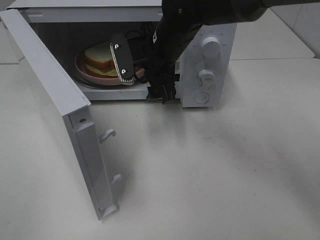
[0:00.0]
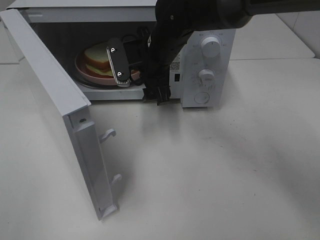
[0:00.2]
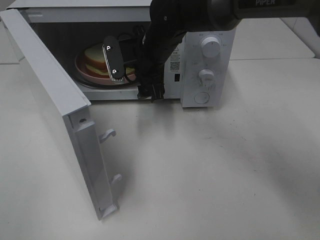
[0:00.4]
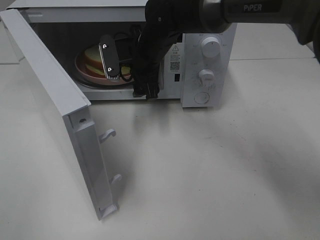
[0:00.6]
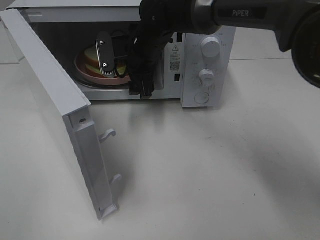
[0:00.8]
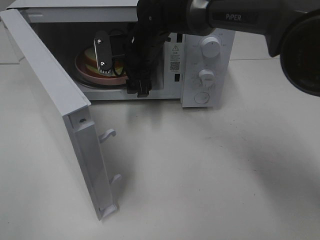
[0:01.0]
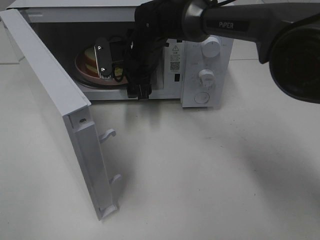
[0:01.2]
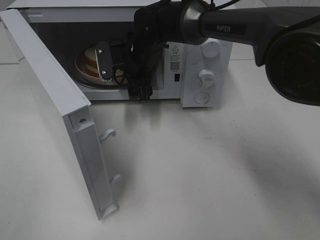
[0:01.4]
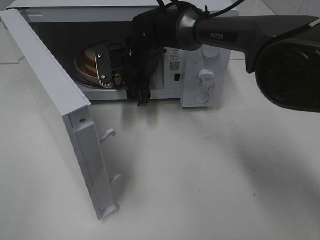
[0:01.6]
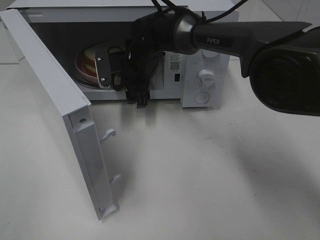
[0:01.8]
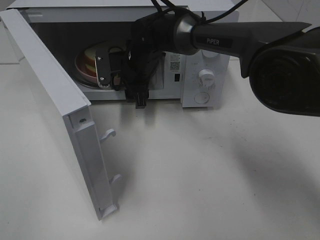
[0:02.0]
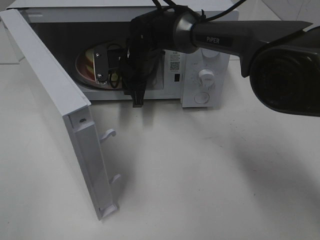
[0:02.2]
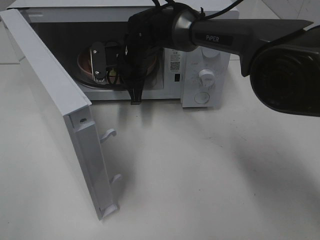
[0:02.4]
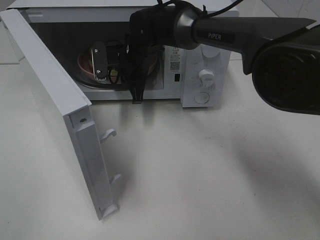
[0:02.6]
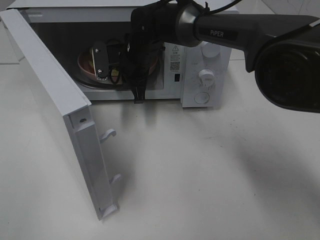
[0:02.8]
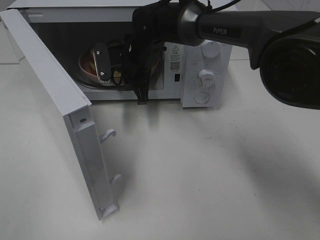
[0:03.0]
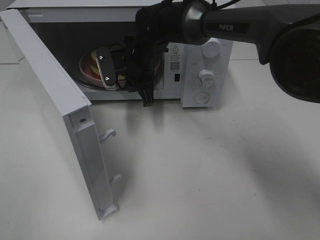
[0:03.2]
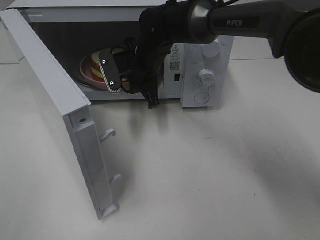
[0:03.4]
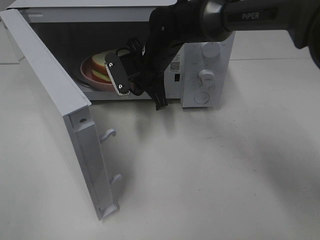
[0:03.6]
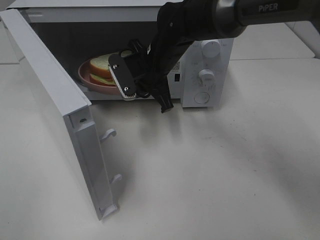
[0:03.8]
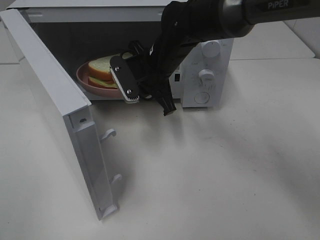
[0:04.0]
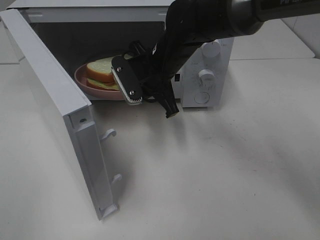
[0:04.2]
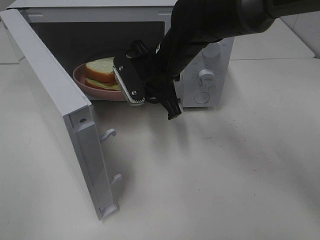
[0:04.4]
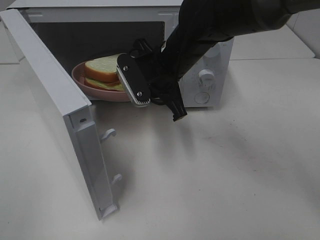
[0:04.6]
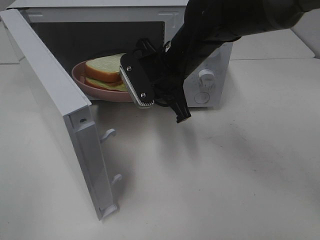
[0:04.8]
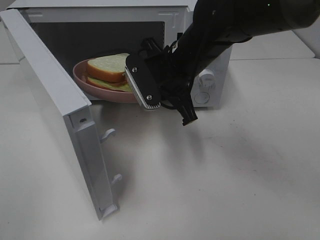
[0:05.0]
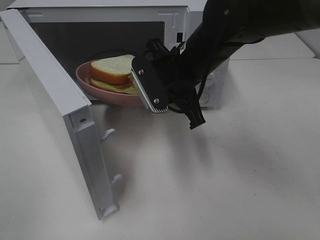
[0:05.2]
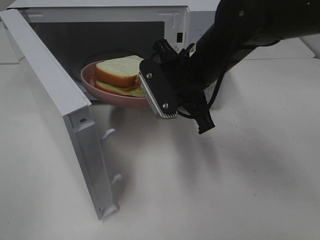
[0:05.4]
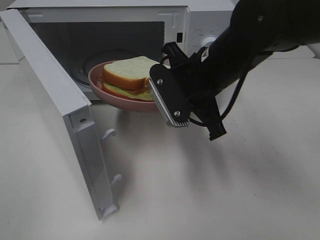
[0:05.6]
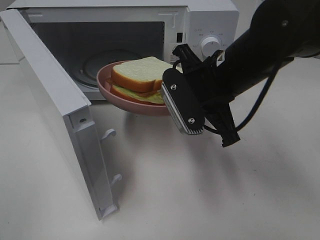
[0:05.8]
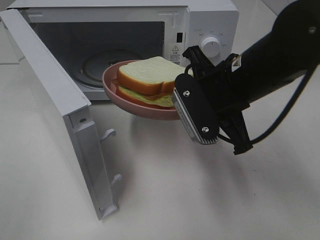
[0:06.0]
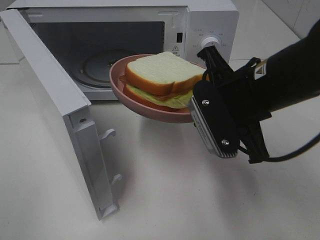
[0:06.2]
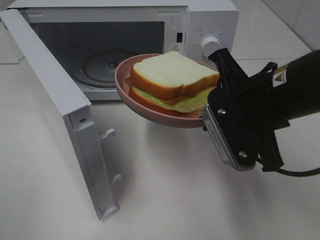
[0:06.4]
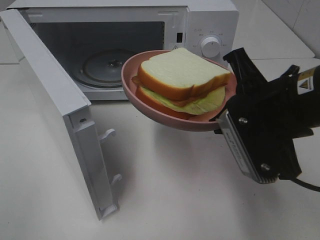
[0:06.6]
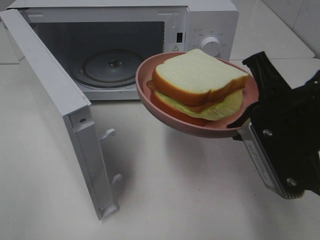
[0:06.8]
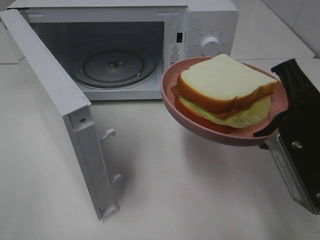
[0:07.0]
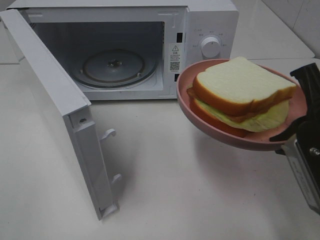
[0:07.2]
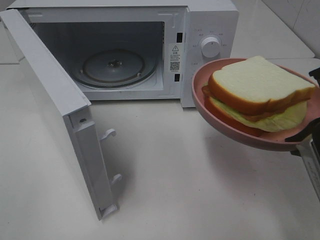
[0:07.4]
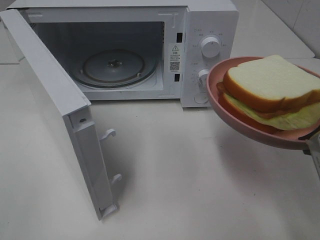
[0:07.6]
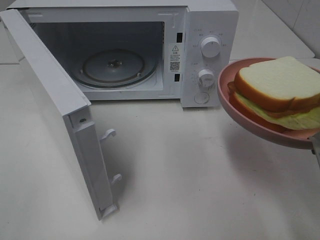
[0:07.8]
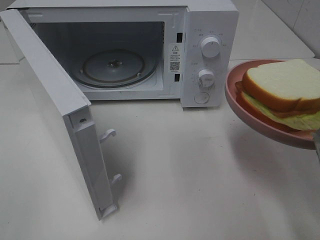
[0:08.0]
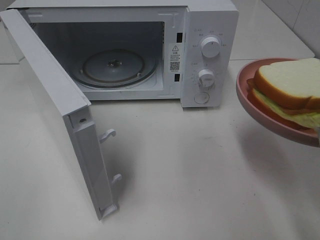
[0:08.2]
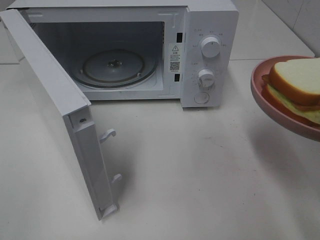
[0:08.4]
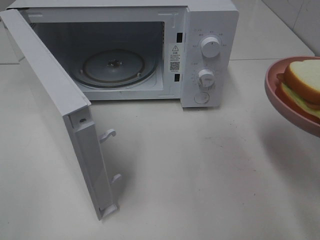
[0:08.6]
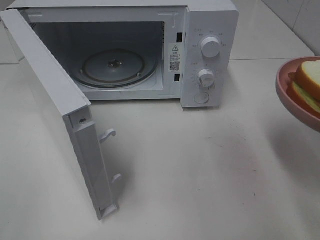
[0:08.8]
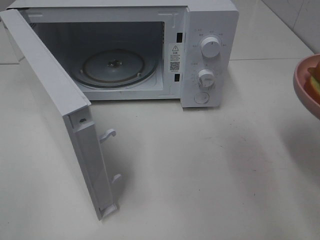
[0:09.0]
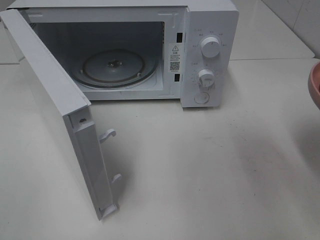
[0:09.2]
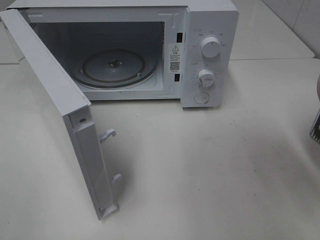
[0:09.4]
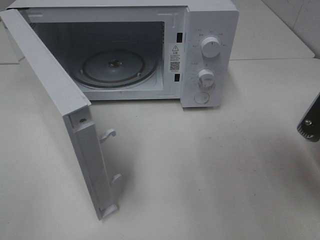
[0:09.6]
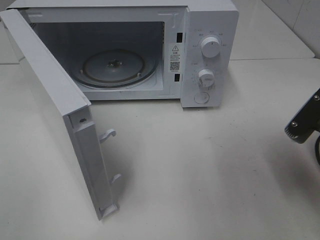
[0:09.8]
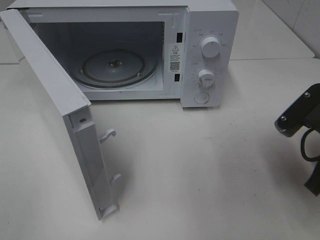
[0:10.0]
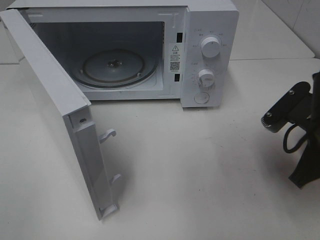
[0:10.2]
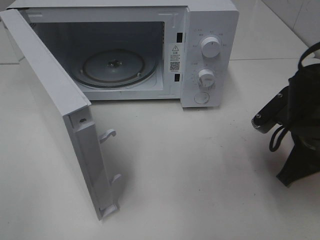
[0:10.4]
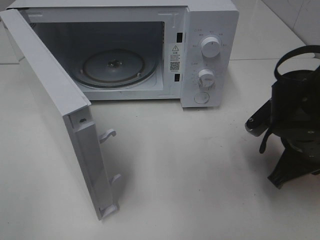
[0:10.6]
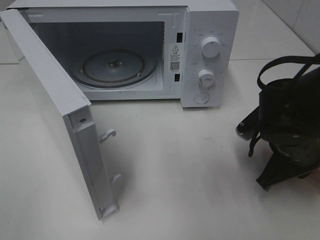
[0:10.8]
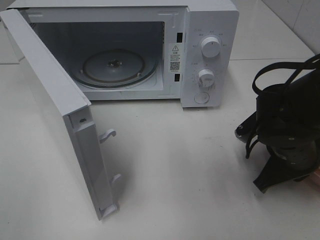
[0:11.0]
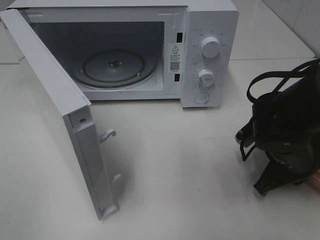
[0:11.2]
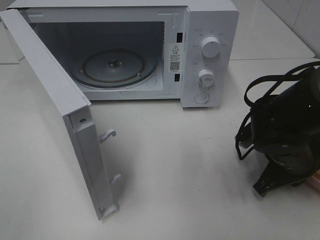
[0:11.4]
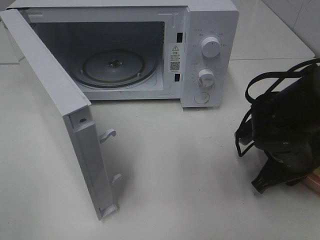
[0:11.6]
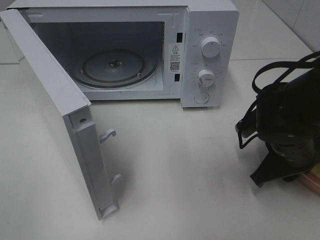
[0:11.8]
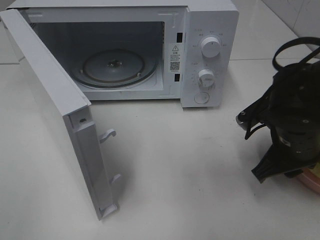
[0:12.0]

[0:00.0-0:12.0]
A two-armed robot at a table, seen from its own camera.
Task of the whole recording: Heat Sandwich.
Step, 0:00.0 to 0:02.8: Right hand: grab the plate with the sandwich.
0:00.0 to 0:01.6: The right gripper is displaced forward and downward by some 10 cm.
0:01.6 to 0:03.0: The right gripper closes.
0:03.0 to 0:04.4: The right gripper goes about 10 cm backward and to the right.
0:04.4 to 0:06.0: The right gripper heads backward and to the right, covering roughly 15 cm.
0:06.0 to 0:07.6: The right gripper goes some 15 cm backward and to the right.
0:09.0 to 0:10.4: The right gripper moves downward and forward, some 15 cm.
0:10.4 to 0:12.0: The right gripper opens.

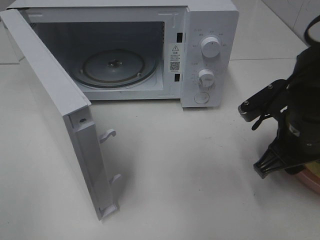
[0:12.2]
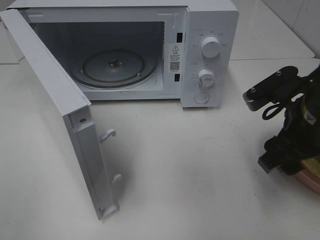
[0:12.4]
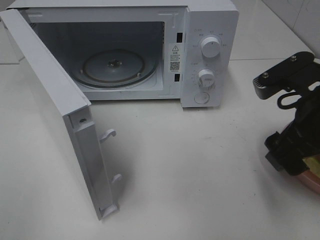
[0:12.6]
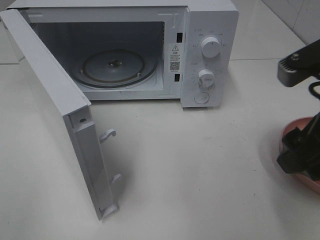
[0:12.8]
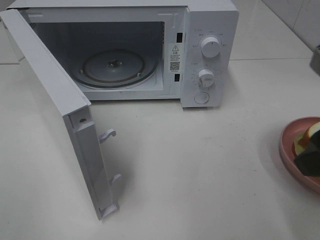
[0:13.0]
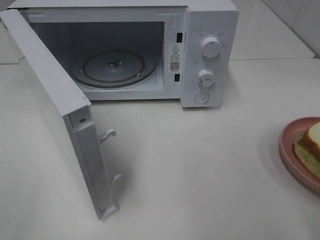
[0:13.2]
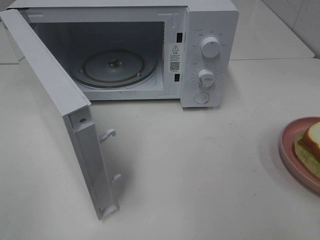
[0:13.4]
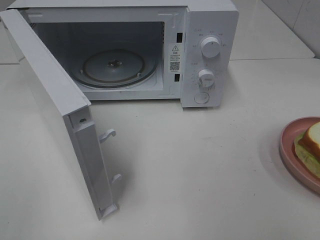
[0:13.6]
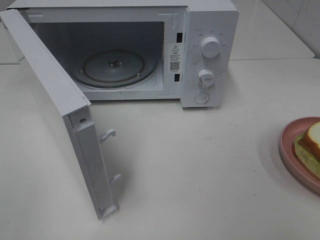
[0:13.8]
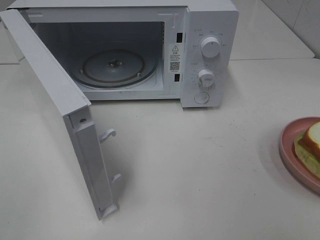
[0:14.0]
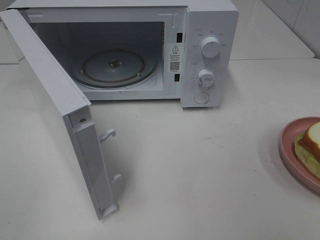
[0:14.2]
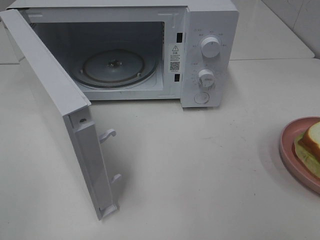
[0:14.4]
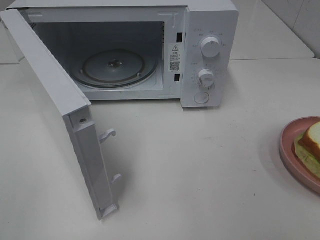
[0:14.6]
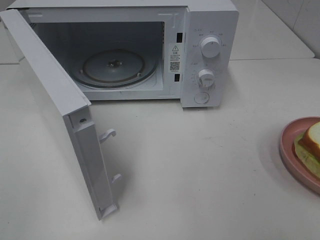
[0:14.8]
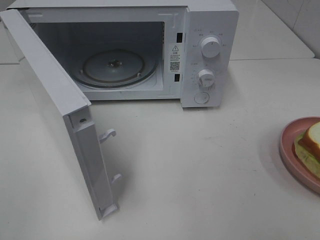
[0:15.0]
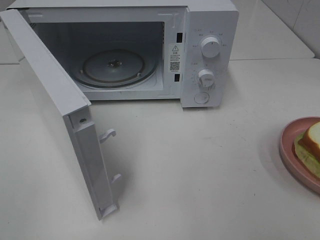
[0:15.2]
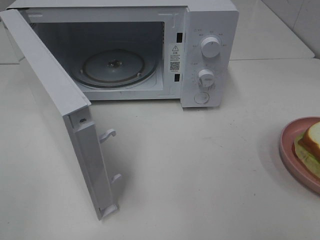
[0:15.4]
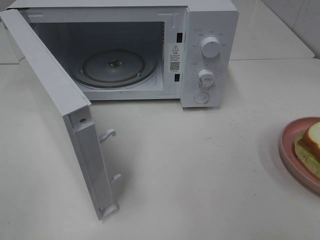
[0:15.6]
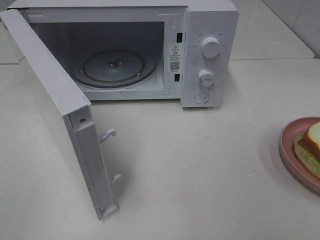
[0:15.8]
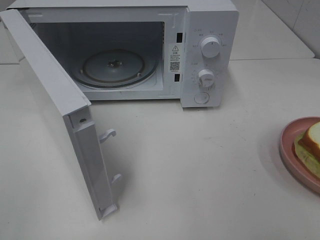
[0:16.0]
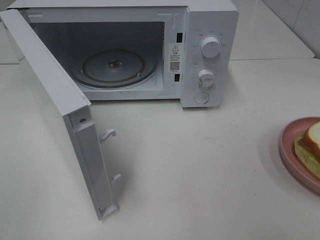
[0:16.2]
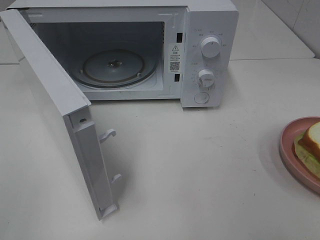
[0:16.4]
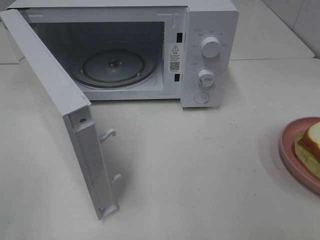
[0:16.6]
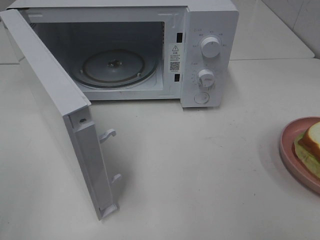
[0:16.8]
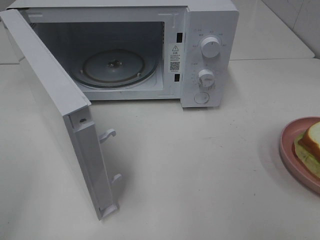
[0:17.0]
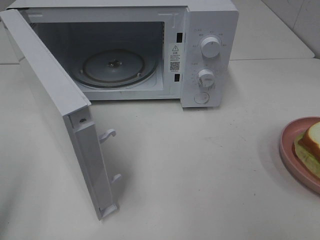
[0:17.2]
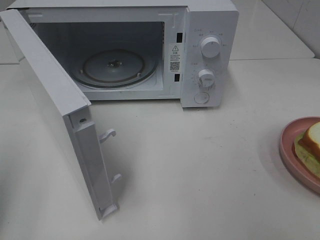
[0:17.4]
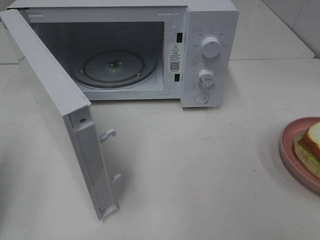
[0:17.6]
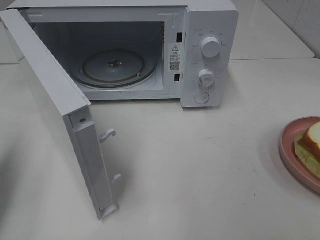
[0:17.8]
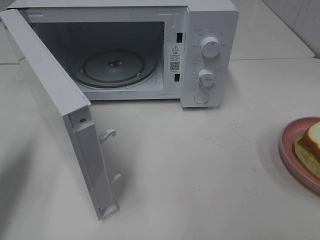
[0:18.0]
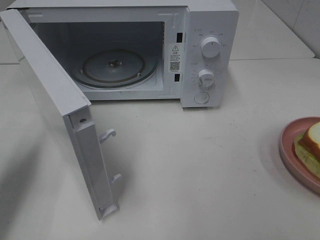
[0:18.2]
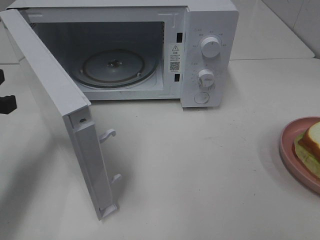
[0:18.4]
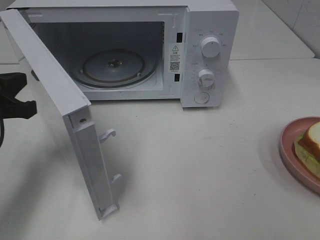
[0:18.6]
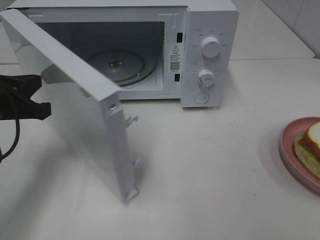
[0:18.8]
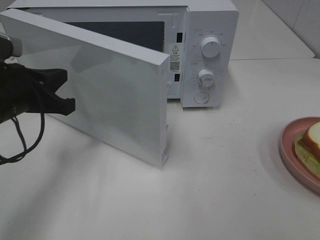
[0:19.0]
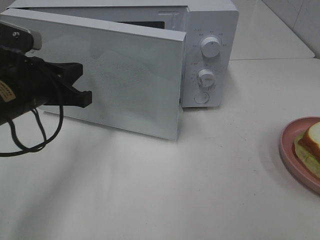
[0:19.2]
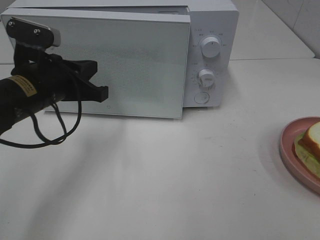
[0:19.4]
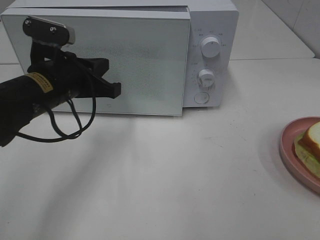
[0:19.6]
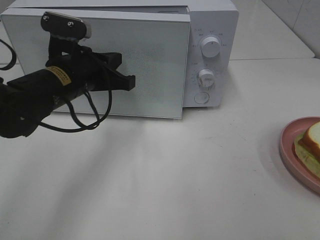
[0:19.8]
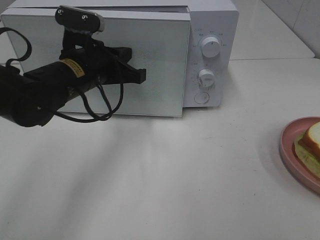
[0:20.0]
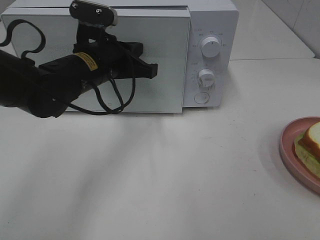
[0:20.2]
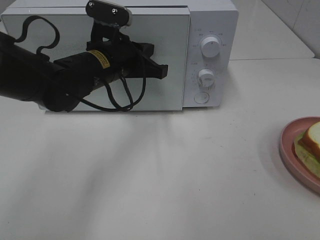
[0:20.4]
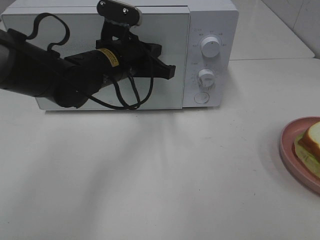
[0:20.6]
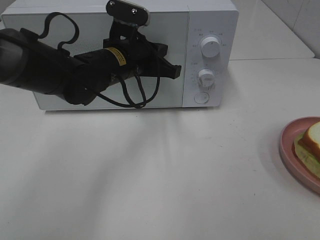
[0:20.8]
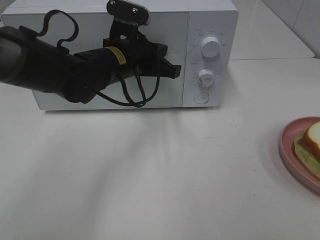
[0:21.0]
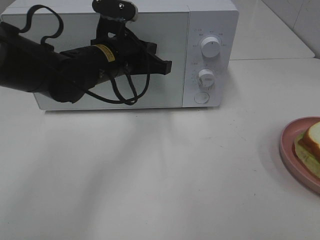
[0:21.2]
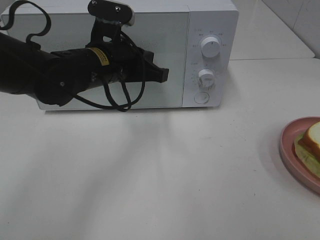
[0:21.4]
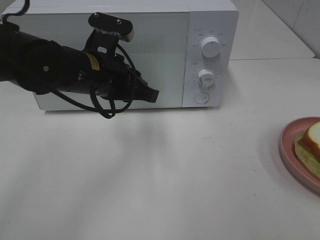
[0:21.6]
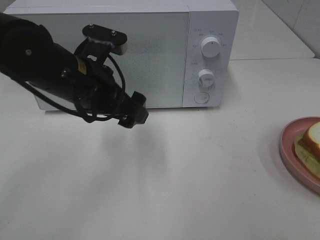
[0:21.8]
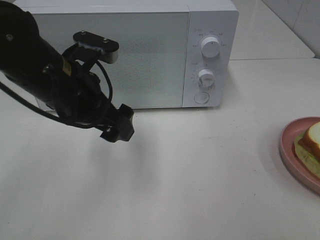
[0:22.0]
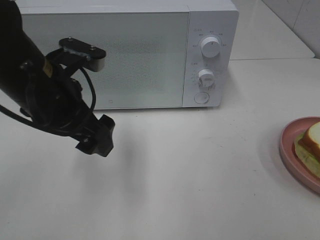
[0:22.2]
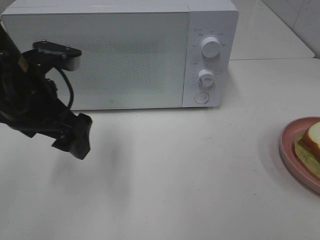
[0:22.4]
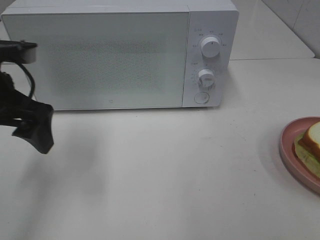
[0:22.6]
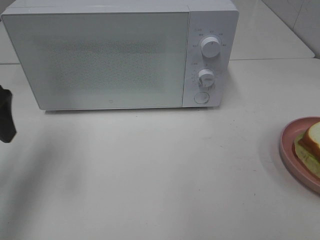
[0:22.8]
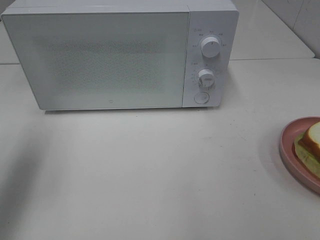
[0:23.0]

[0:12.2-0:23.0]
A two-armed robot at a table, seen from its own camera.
Task of the whole recording: Heat Sandwich.
Step, 0:13.0 to 0:21.2: Left hand: close the microwave door.
0:12.2 to 0:13.8: The right gripper shifts about 25 cm backward, upward and to the right, and opens.
0:16.8 to 0:18.4: The left gripper goes roughly 20 cm forward and downward, and closes up.
0:18.4 to 0:20.0: The left gripper moves to the right and forward, approximately 20 cm.
0:21.4 to 0:23.0: The left gripper is displaced to the left, upward and backward by approximately 25 cm, and opens.
